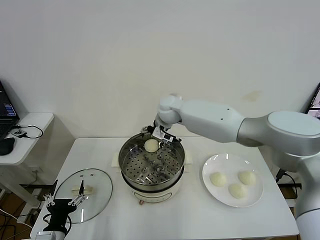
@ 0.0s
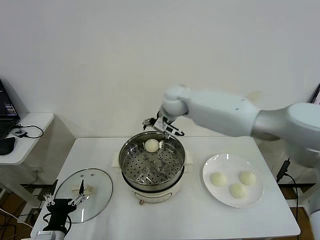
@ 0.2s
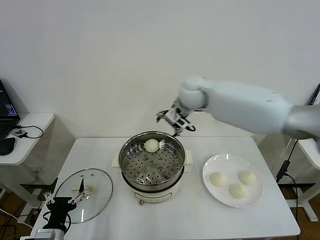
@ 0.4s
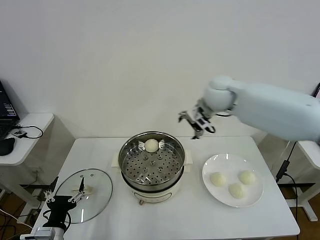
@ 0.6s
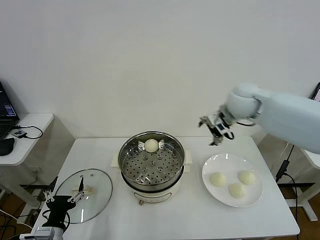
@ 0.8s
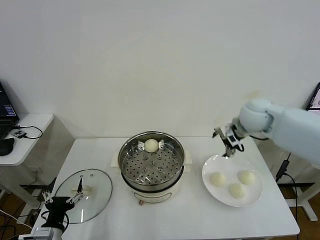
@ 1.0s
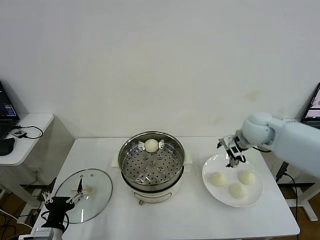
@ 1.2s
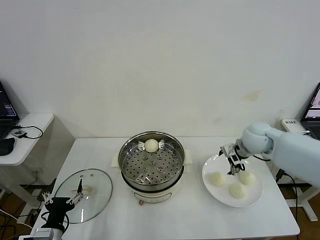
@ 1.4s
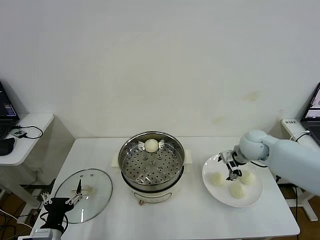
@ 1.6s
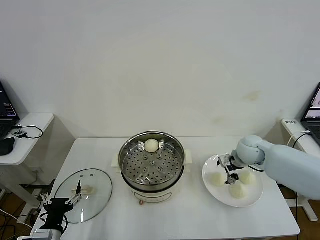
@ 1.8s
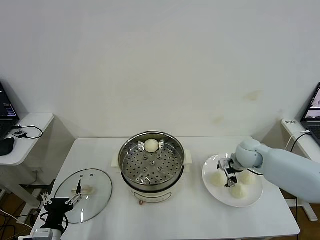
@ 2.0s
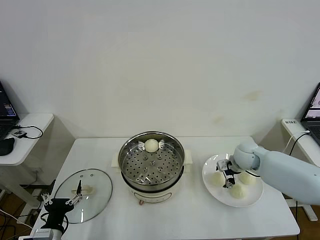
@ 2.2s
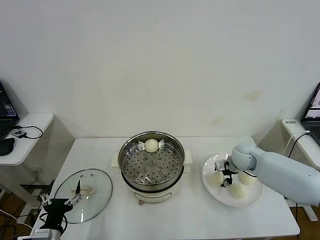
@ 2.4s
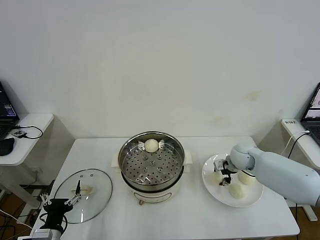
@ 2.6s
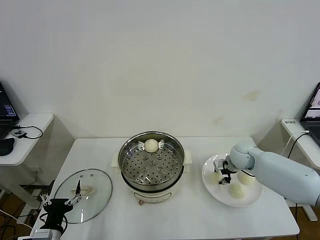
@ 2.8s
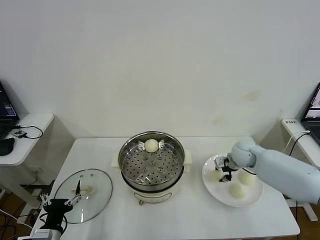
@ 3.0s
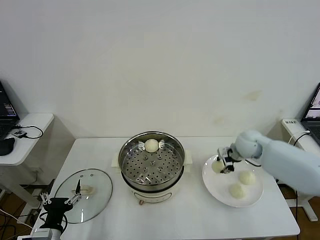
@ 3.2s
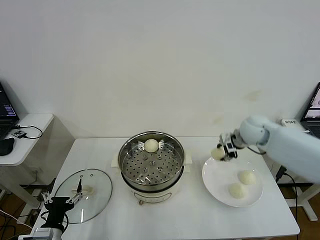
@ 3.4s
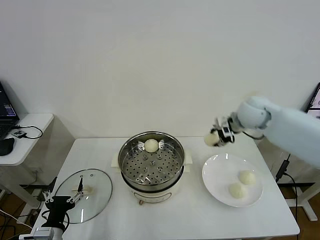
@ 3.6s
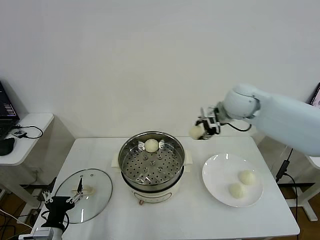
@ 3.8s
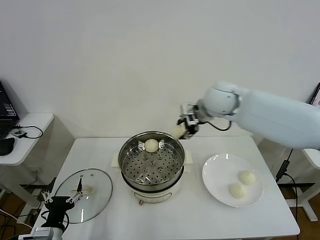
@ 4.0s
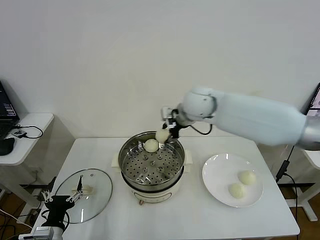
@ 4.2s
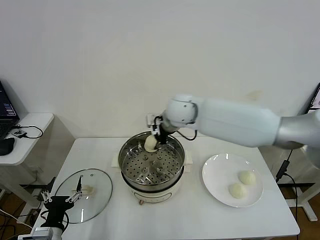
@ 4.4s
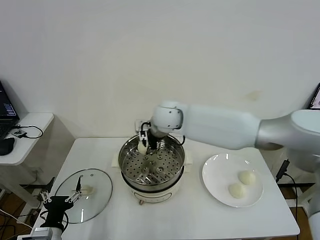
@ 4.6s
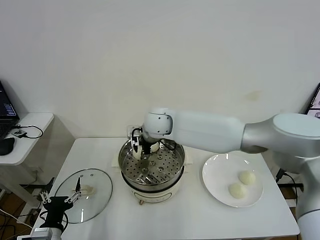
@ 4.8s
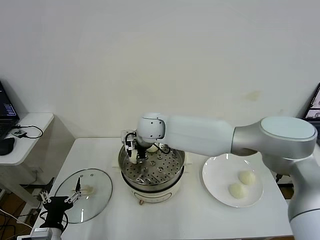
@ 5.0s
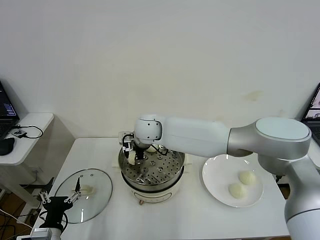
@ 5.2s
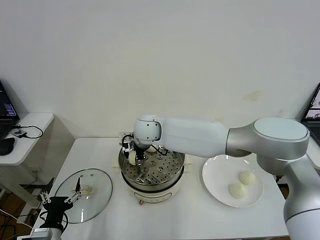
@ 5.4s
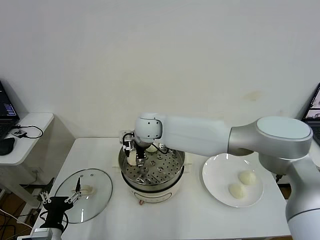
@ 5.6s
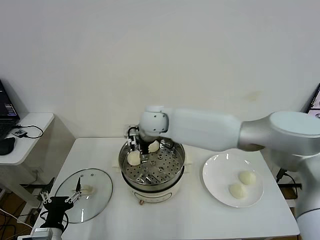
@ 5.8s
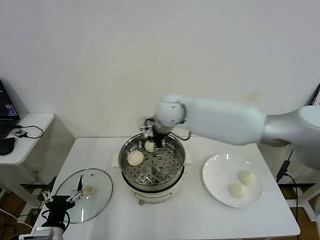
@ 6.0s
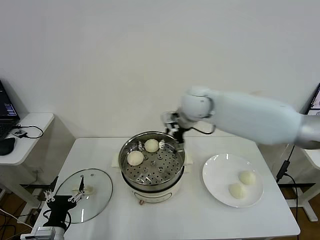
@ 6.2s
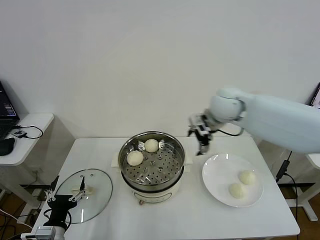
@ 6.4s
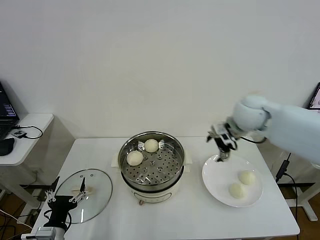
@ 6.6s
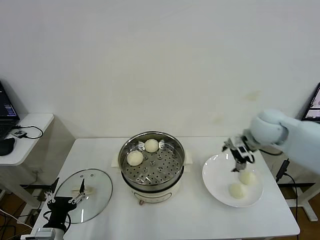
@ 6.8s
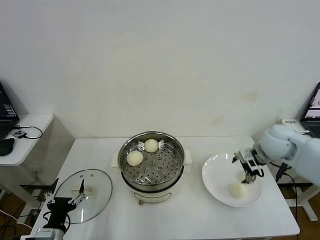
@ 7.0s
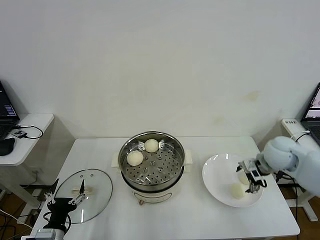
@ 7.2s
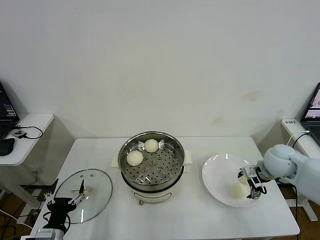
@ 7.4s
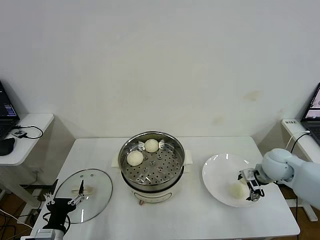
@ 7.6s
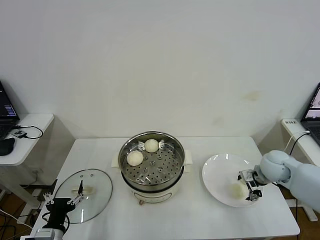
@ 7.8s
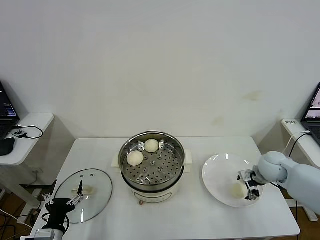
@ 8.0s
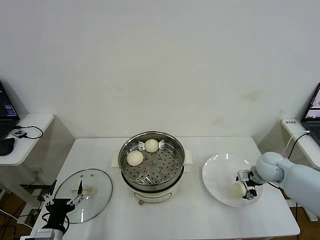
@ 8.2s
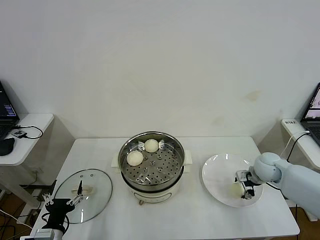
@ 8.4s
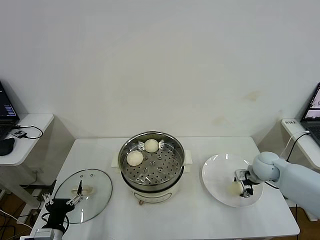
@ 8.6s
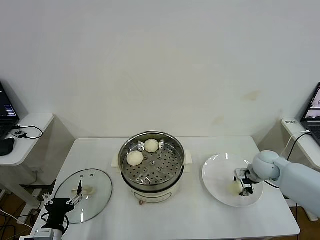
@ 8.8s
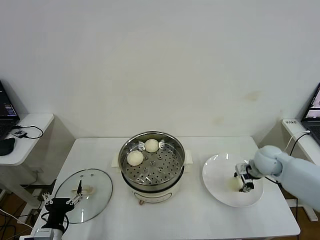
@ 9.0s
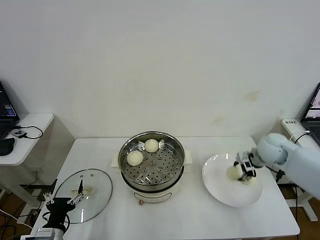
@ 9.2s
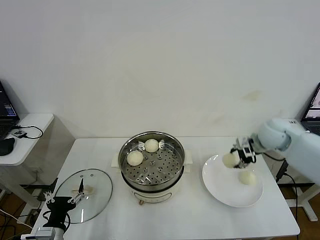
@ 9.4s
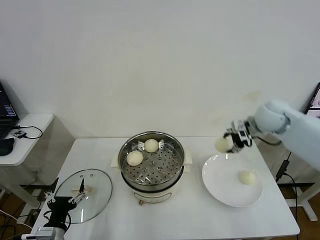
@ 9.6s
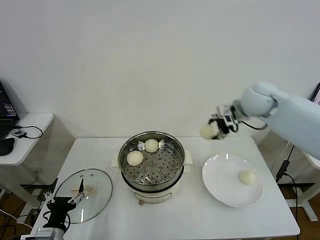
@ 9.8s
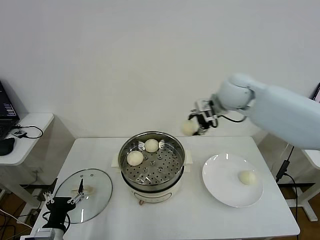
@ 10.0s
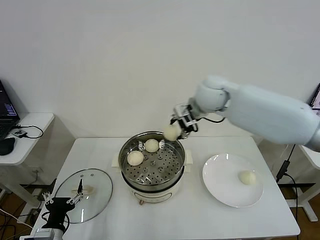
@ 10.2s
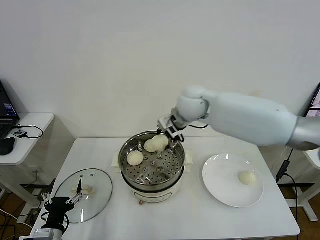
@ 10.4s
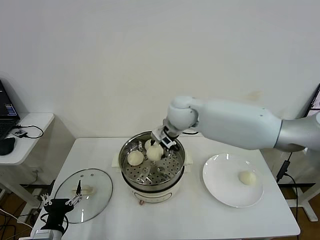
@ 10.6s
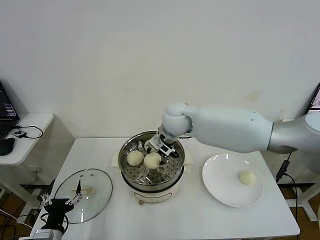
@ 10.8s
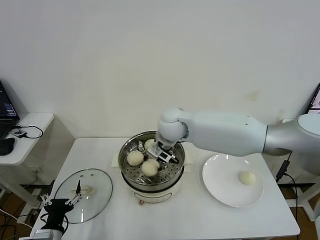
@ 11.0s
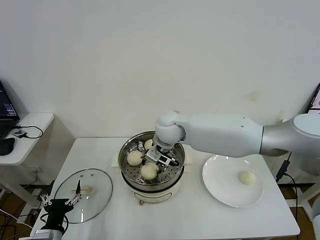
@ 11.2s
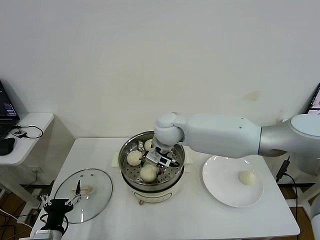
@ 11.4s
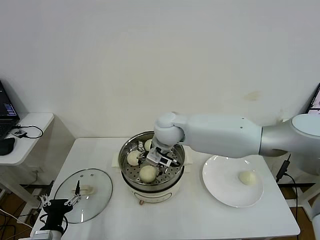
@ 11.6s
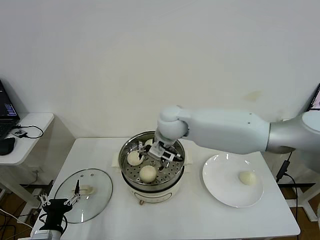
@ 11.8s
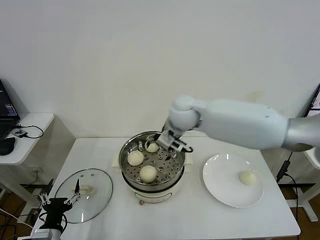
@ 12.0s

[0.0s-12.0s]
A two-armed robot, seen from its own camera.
Step, 0.0s to 2.8s: Grasp the baozi in the plate with right gripper.
Step, 3.0s to 5.4s: Place the baozi on the steamer with right gripper.
Step, 5.8s to 8.8s: Grasp the baozi in the plate with right gripper.
Step, 9.0s to 11.6s: Place the baozi on the steamer with right gripper.
0.0s to 1.6s: The right gripper shifts about 30 cm to the right.
1.6s to 3.0s: The right gripper closes.
3.0s to 4.4s: The right gripper heads to the left and upward, covering some 30 cm.
4.4s to 6.0s: The right gripper reaches roughly 10 cm to the left, then returns, and opens.
6.0s to 7.6s: The right gripper heads to the right and downward, covering about 35 cm.
7.6s to 9.0s: The right gripper closes.
9.0s to 10.4s: The right gripper goes about 35 cm to the left and upward.
10.4s to 12.0s: The right gripper opens up.

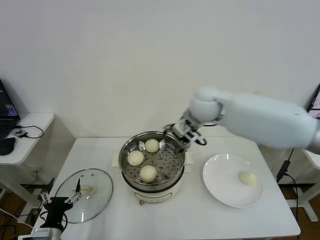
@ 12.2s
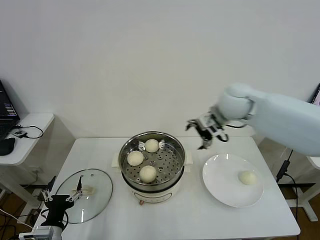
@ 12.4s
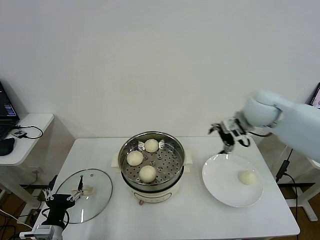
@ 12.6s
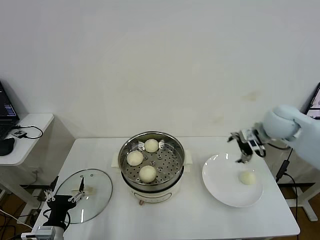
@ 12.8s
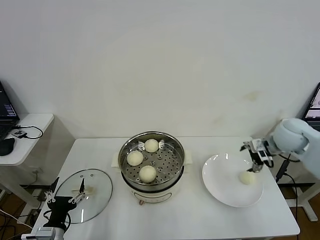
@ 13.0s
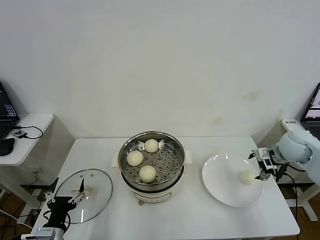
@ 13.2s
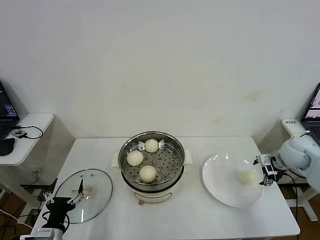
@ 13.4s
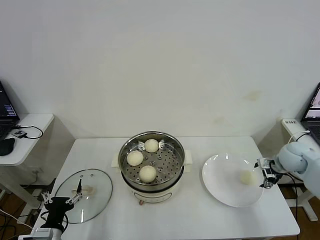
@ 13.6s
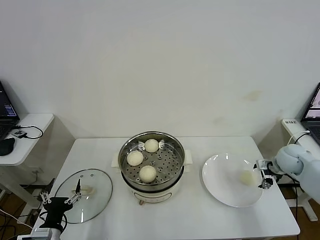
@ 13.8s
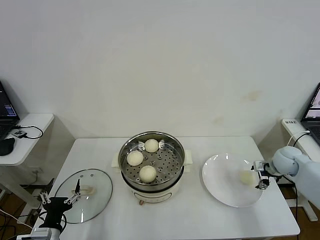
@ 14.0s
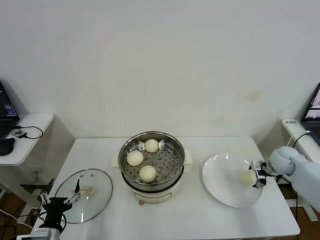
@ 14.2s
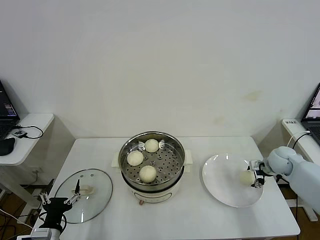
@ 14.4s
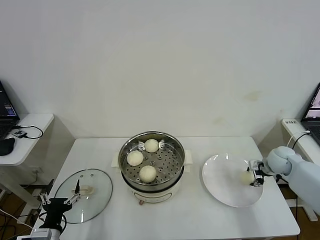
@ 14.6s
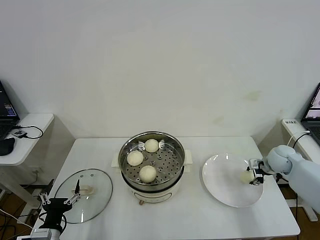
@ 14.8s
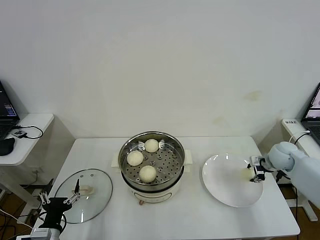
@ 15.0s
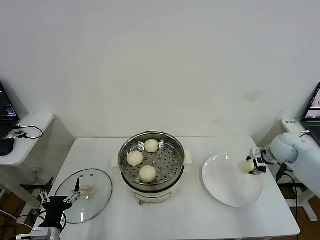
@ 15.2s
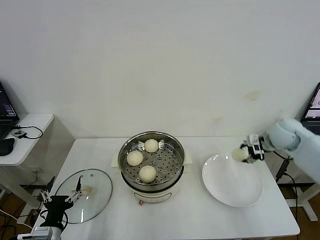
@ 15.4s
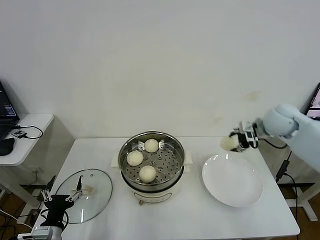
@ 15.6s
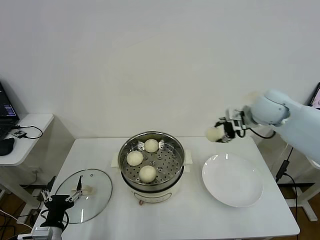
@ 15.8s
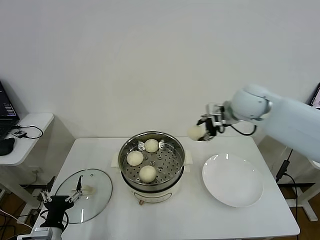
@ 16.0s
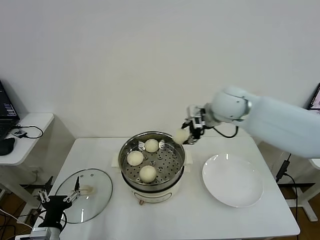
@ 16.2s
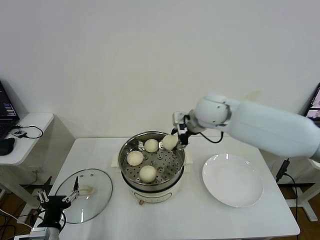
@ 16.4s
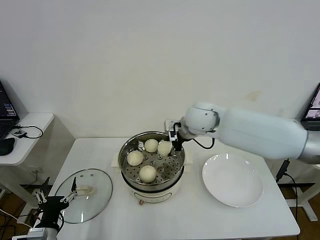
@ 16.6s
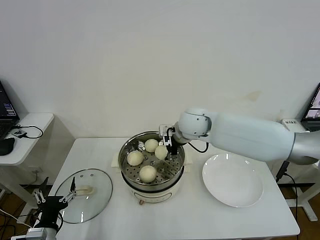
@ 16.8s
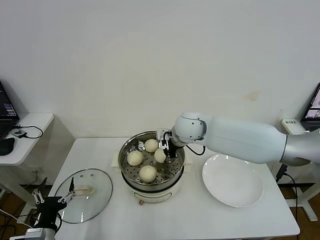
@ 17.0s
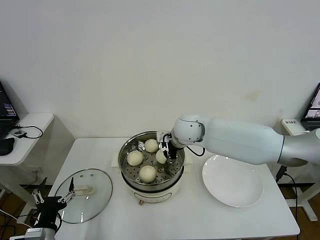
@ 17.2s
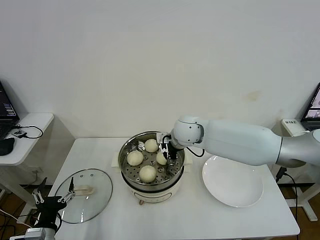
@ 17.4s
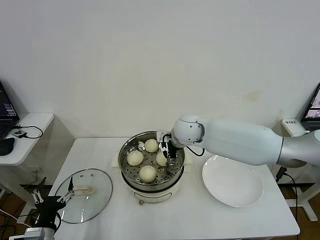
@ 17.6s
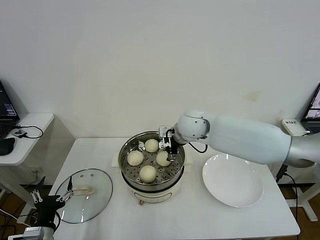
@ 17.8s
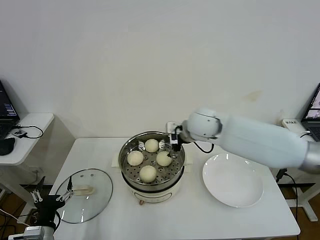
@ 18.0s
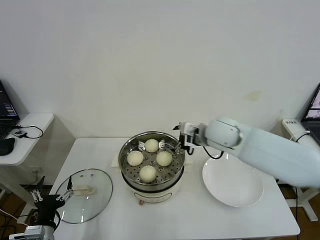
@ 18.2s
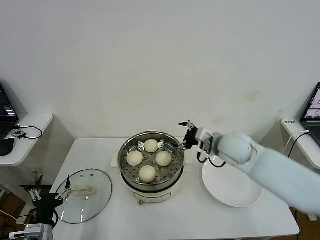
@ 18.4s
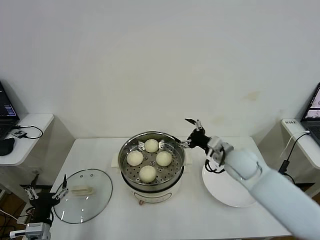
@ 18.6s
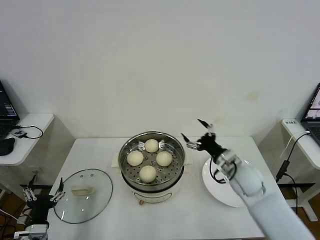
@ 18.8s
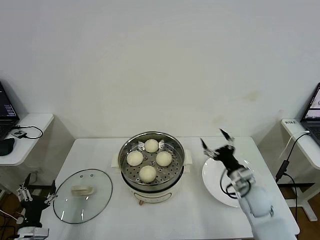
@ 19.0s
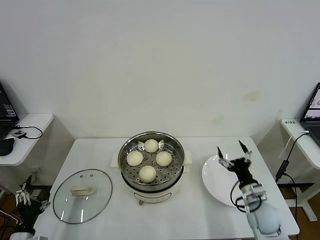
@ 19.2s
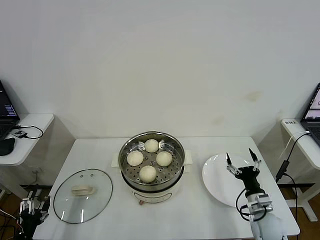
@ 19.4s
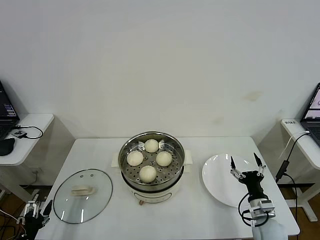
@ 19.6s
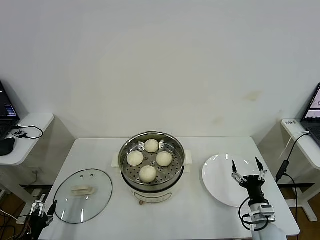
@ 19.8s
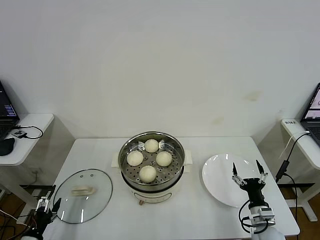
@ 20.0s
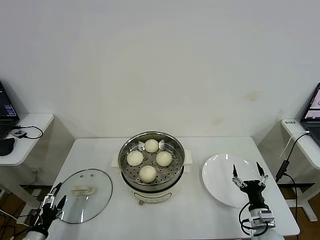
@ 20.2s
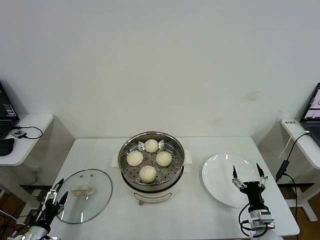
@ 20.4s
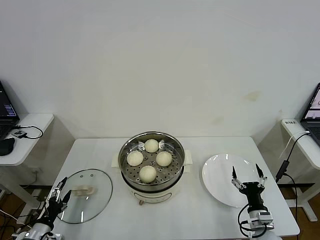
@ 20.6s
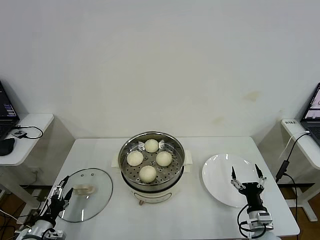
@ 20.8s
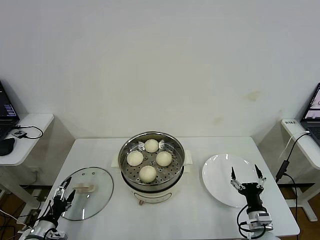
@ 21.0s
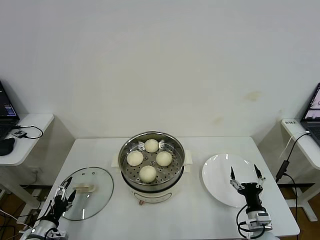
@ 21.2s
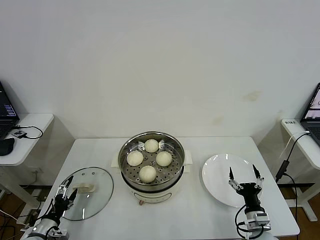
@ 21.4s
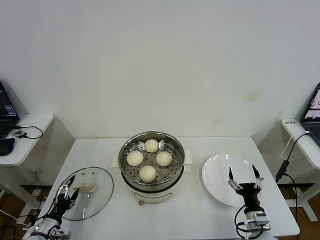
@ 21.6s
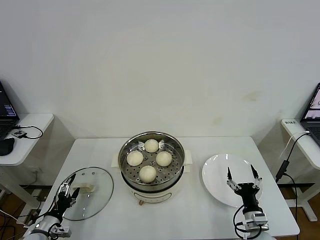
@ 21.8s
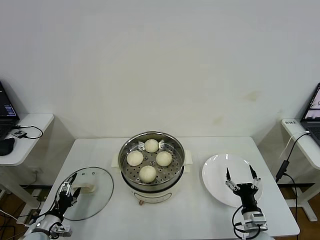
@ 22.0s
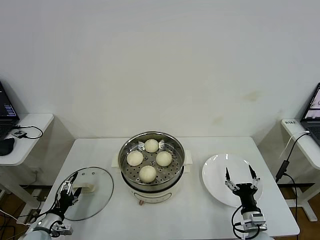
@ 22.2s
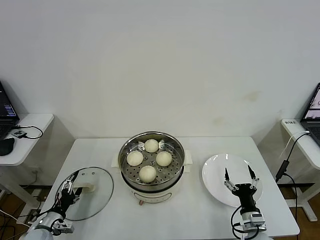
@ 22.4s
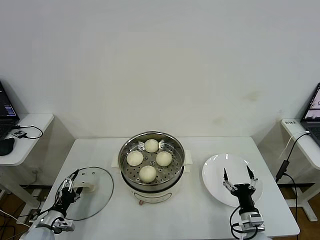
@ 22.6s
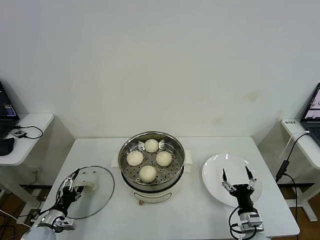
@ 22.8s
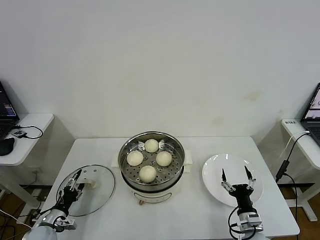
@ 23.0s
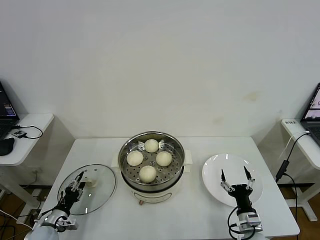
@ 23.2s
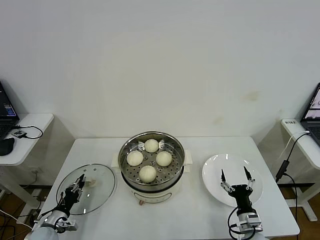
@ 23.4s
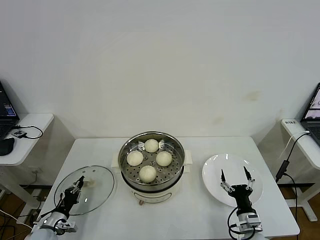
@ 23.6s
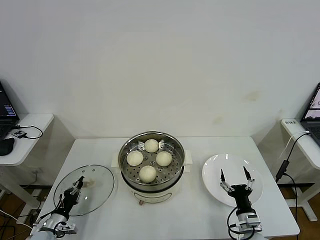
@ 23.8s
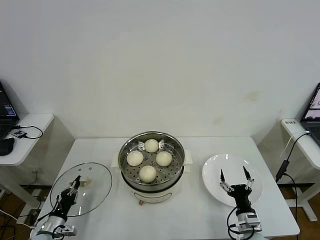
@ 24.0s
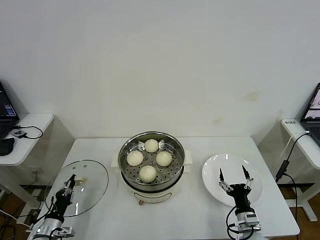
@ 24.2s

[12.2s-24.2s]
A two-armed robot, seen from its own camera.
Step, 12.2s to 14.8s: Grasp the baozi in the plate with right gripper.
Step, 15.0s to 17.6s: Place the baozi on the steamer with right gripper.
Step, 17.8s to 23.8s: Grasp the pot lid with left gripper.
12.2s to 13.8s: The right gripper moves to the right and downward, roughly 35 cm.
13.8s to 15.2s: The right gripper closes up.
15.2s to 16.6s: The right gripper heads to the left, covering about 30 cm.
16.6s to 18.2s: The right gripper moves to the right, some 5 cm, and opens its fingers.
18.2s to 19.8s: The right gripper shifts approximately 40 cm downward, backward and to the right. The left gripper goes about 10 cm to the left.
19.8s to 21.2s: The left gripper goes roughly 10 cm forward.
21.2s to 22.6s: There are only small adjustments of the grippers.
22.6s to 24.2s: The left gripper closes its fingers.
